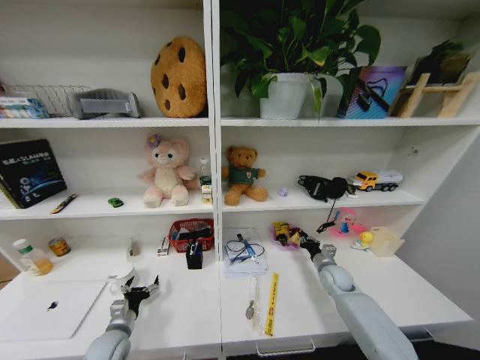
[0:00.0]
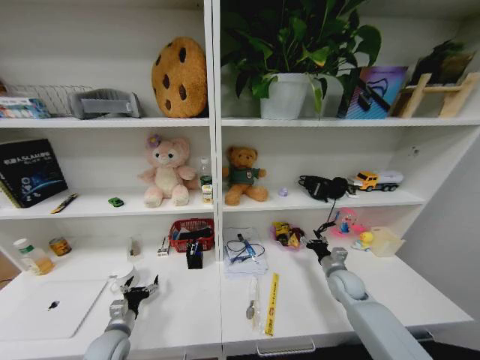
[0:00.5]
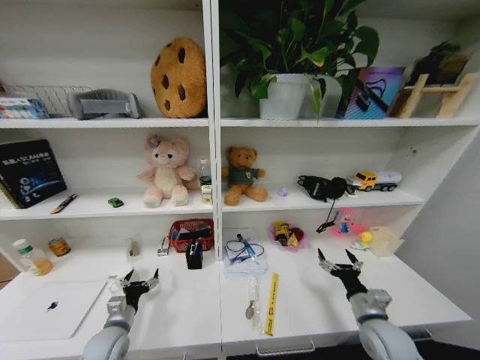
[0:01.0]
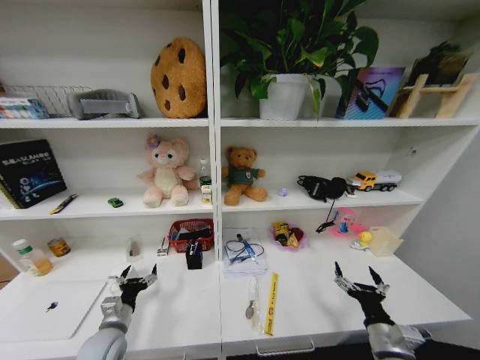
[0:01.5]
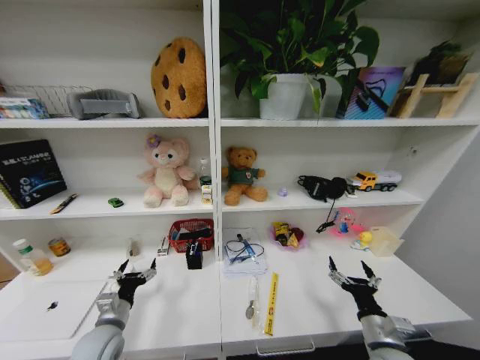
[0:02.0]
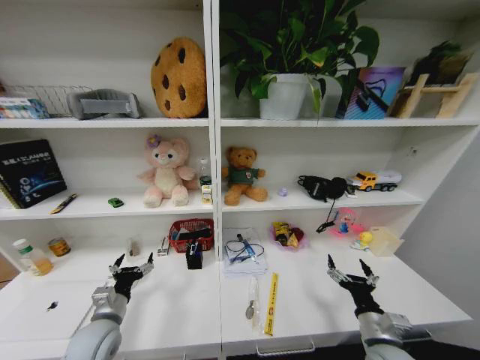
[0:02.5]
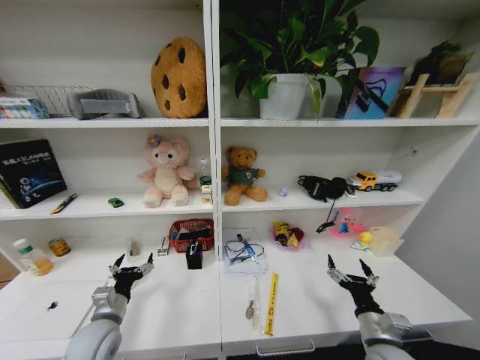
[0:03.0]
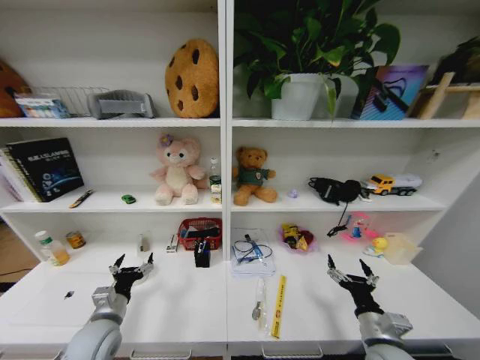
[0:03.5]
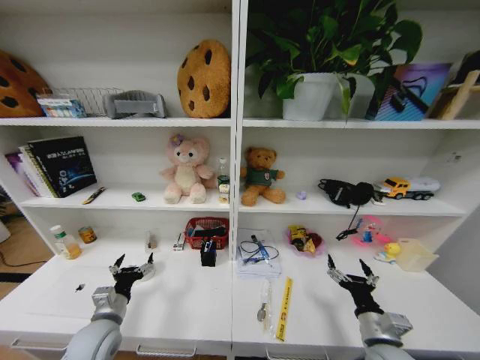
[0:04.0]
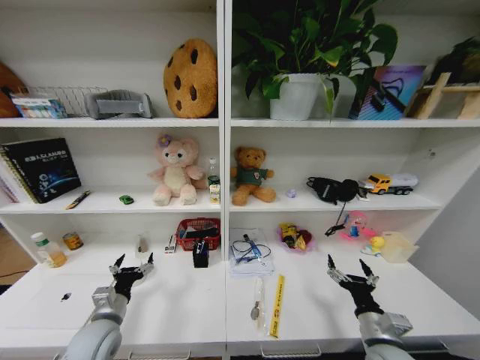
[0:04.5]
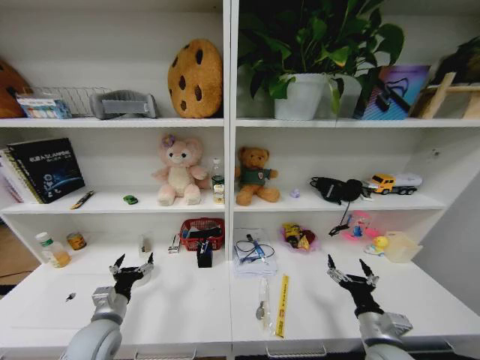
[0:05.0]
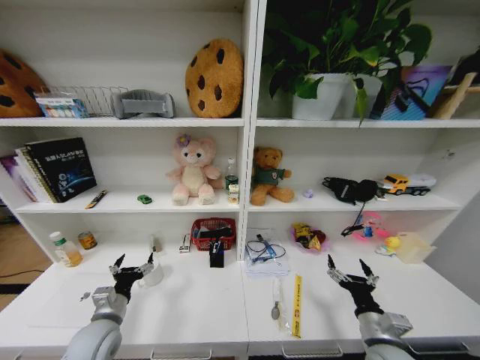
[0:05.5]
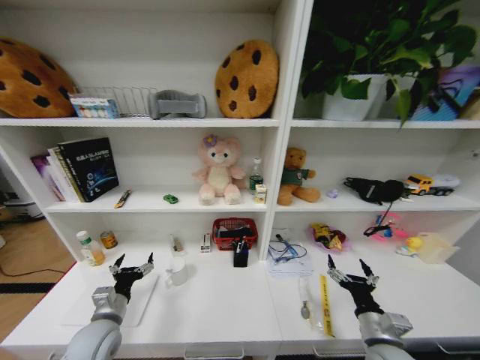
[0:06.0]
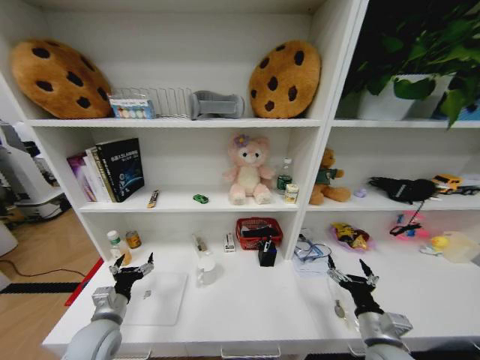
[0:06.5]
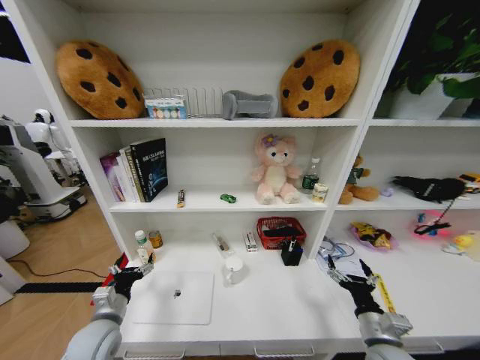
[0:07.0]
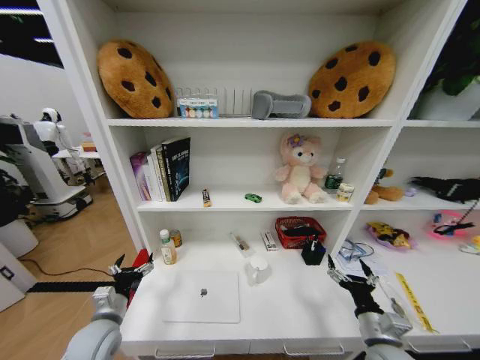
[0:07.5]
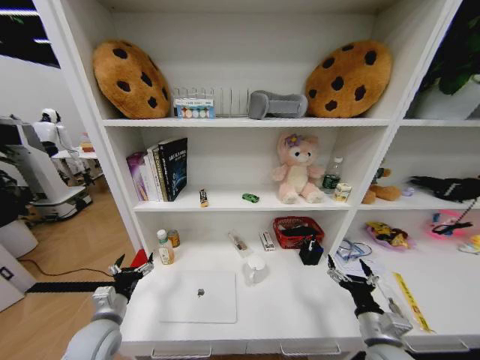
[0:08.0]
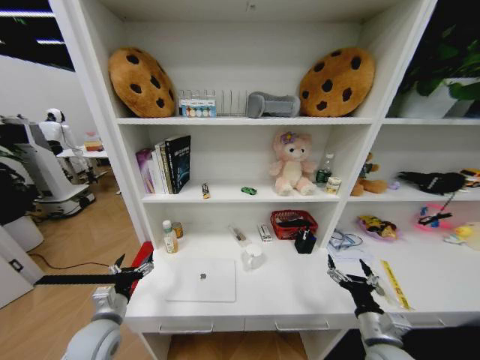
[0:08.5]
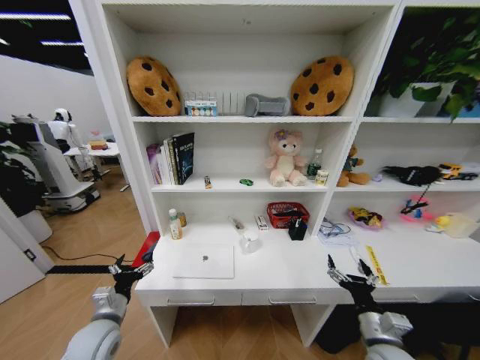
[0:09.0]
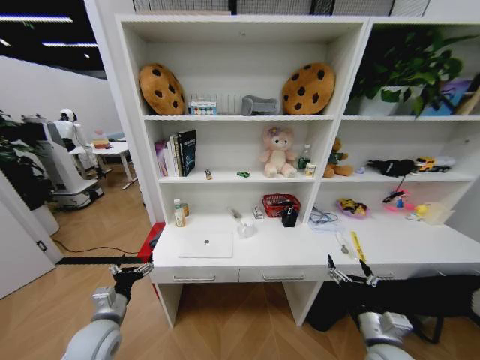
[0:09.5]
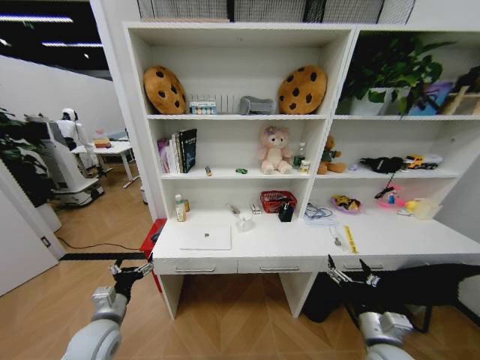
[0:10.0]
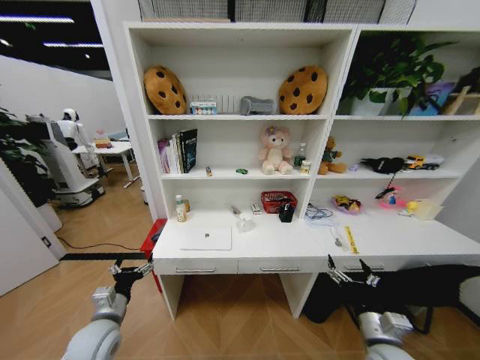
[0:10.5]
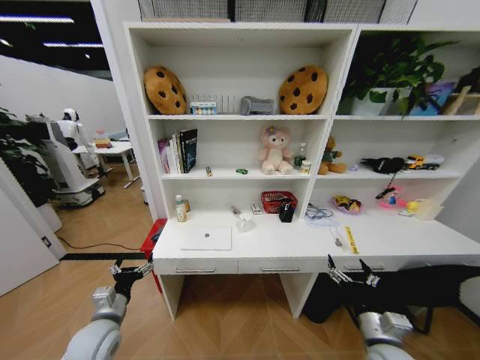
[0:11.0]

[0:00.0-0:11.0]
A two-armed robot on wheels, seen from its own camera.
Task of the whole recording: Organize the objects on the table.
0:00.0 to 0:02.0: The right gripper shifts roughly 25 cm backward, and opens up. The left gripper goes roughly 10 cm upward.

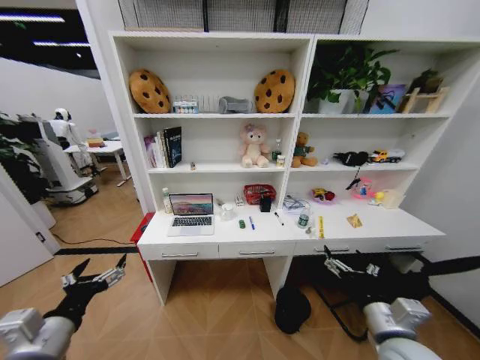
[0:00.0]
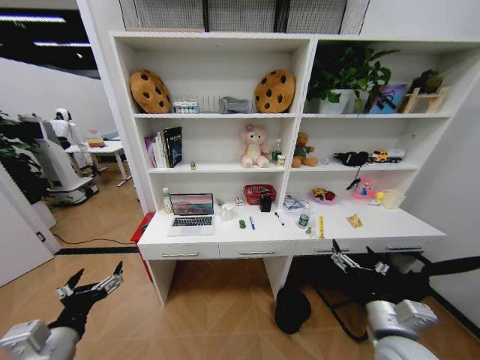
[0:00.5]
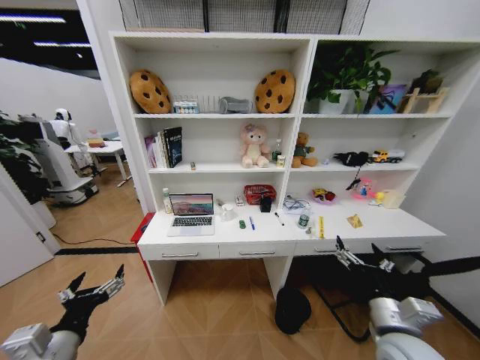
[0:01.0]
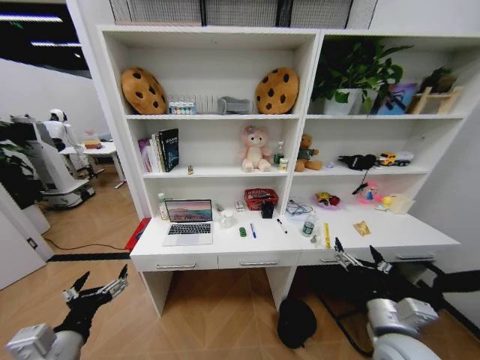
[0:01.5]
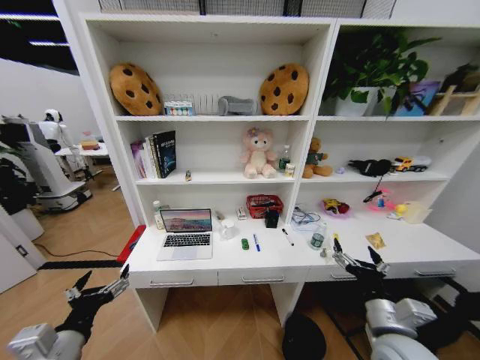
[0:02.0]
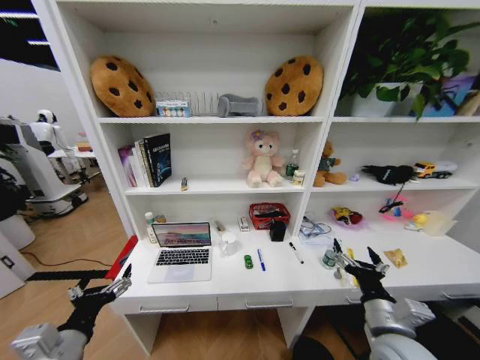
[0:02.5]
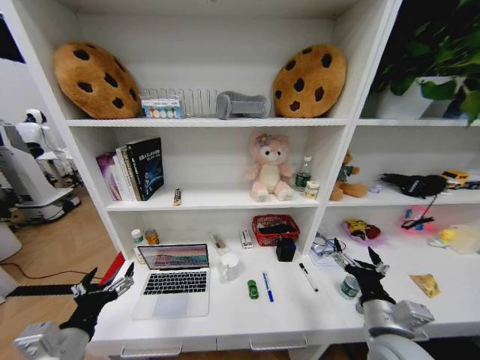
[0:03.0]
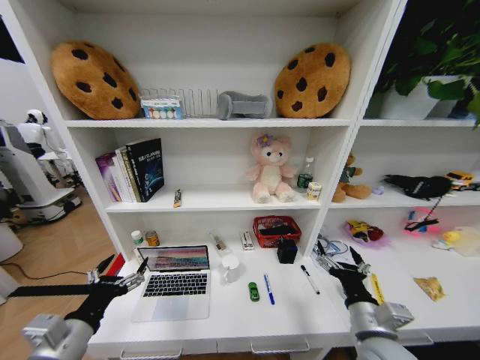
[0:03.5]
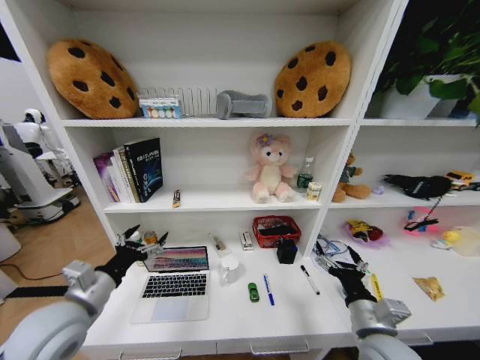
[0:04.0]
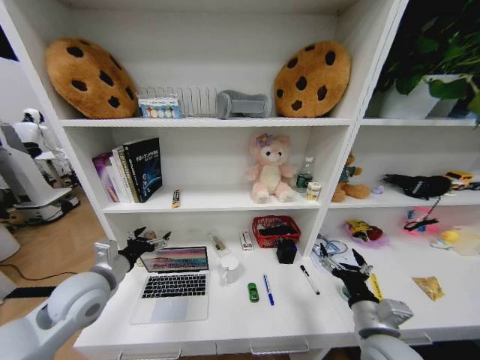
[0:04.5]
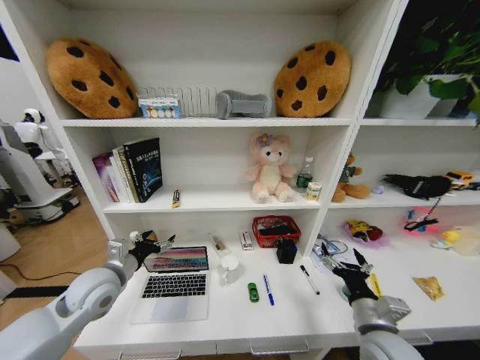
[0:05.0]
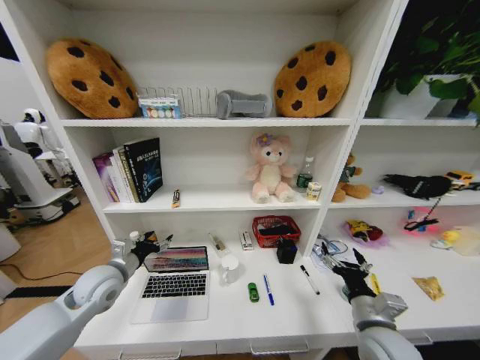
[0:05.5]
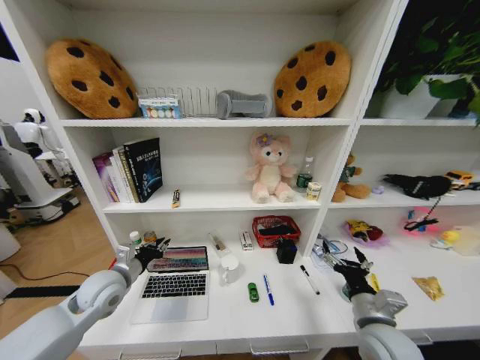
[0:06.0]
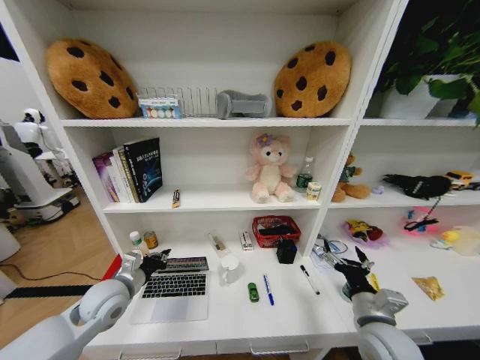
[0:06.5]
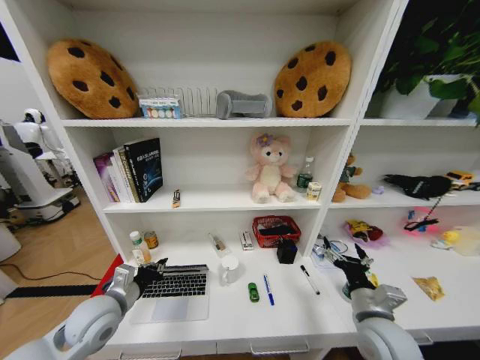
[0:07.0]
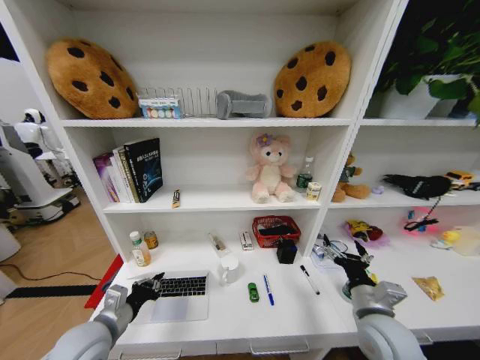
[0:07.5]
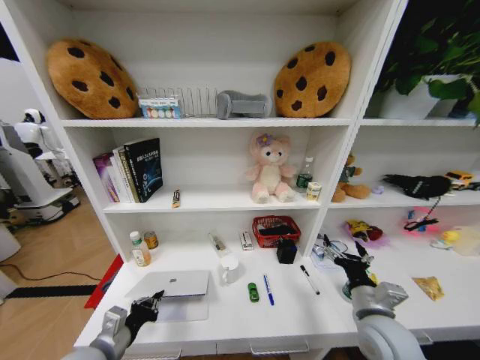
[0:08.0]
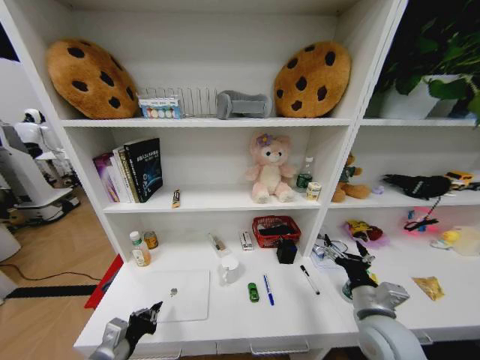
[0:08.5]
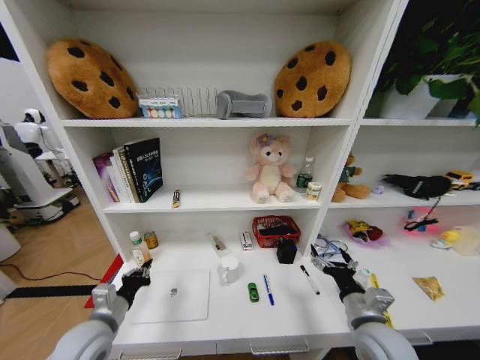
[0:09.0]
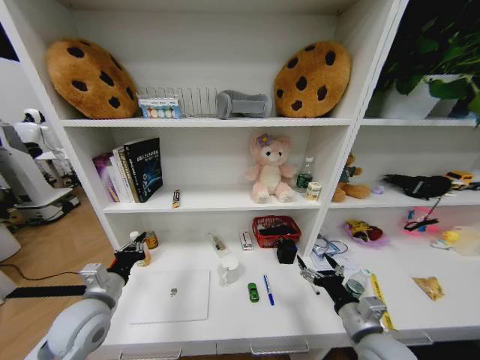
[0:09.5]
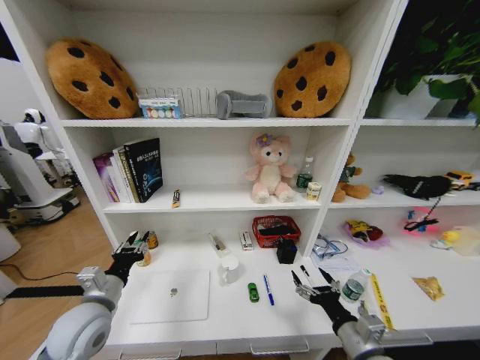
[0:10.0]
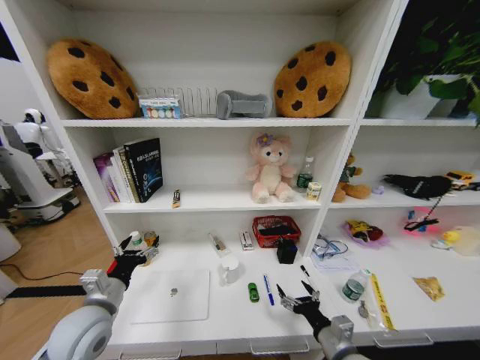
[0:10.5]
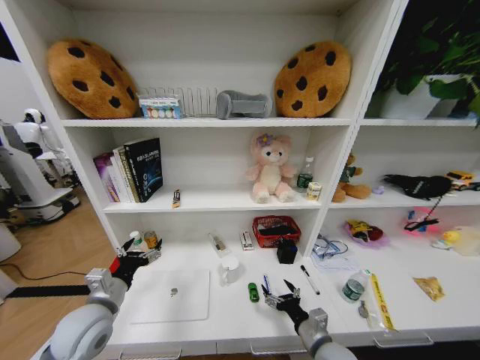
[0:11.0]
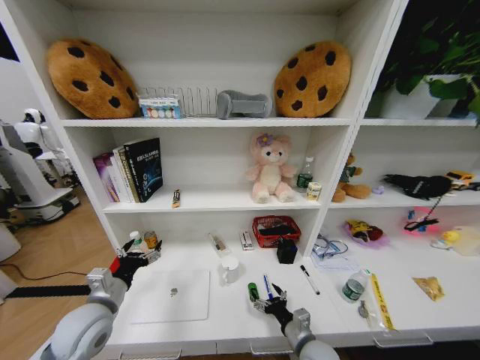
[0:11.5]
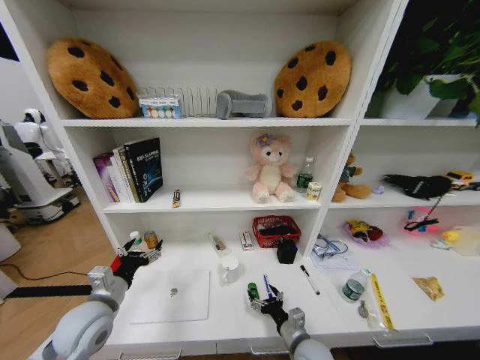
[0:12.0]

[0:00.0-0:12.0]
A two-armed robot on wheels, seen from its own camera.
Task of the whole recording: Organize the objects on the table.
0:02.0 to 0:04.0: The left gripper shifts some 10 cm forward.
0:04.0 to 0:06.0: The left gripper moves forward and downward, approximately 10 cm, and closes up.
0:06.0 to 0:08.0: The left gripper is displaced backward by roughly 15 cm.
0:08.0 to 0:10.0: The right gripper moves backward, about 5 cm. Meanwhile the left gripper is displaced forward by roughly 5 cm, and opens its fingers.
0:10.0 to 0:12.0: The right gripper travels downward, to the left and forward by some 15 cm. The left gripper opens its fingers.

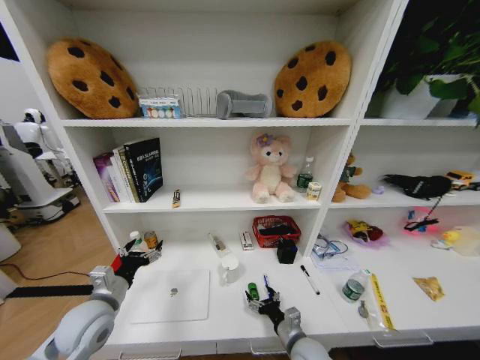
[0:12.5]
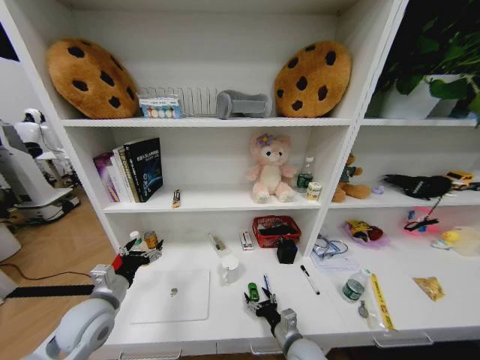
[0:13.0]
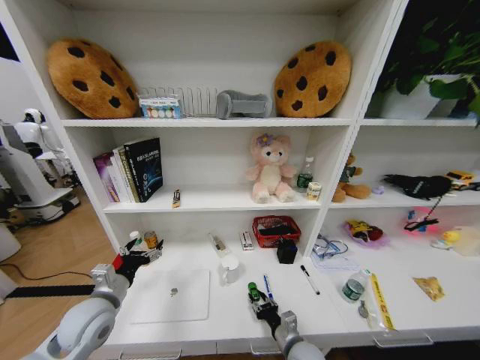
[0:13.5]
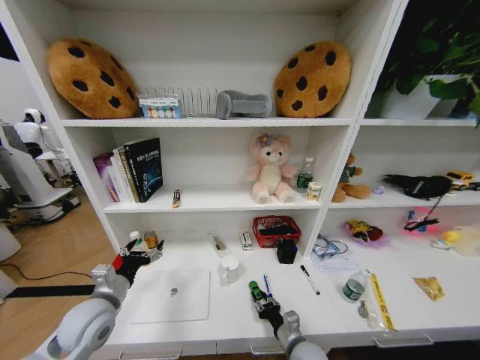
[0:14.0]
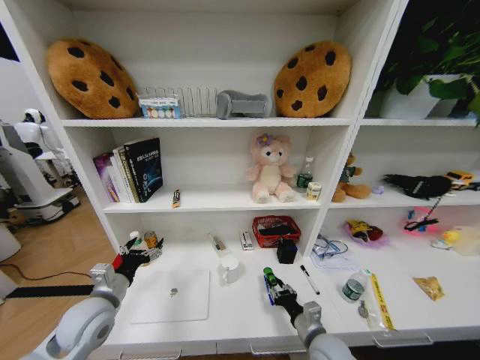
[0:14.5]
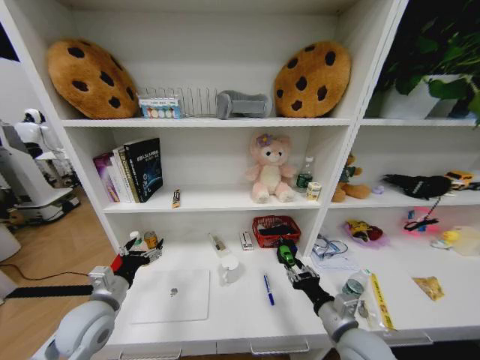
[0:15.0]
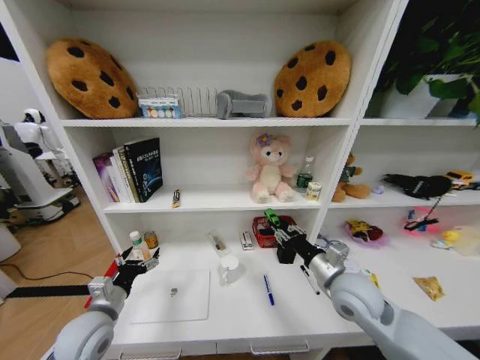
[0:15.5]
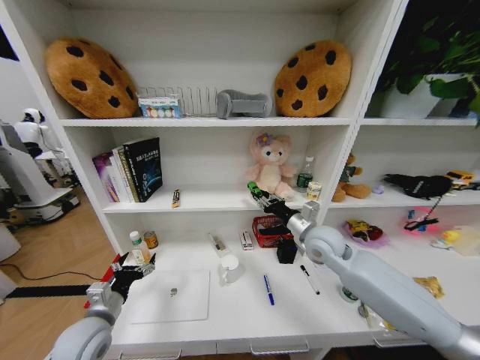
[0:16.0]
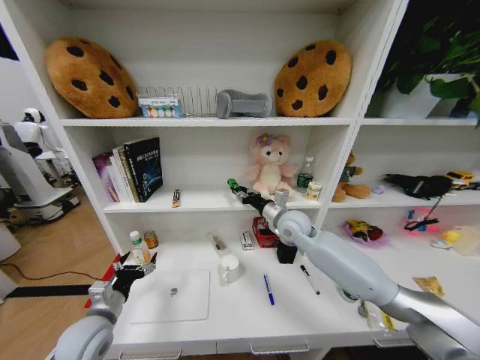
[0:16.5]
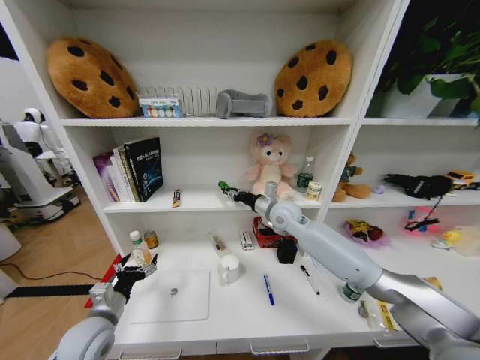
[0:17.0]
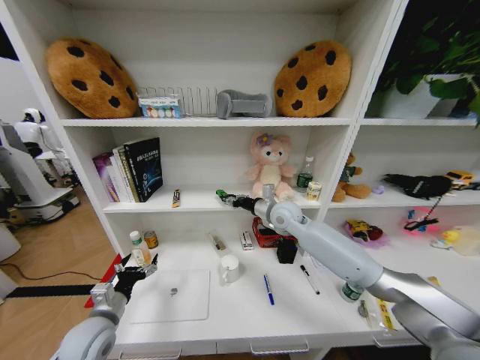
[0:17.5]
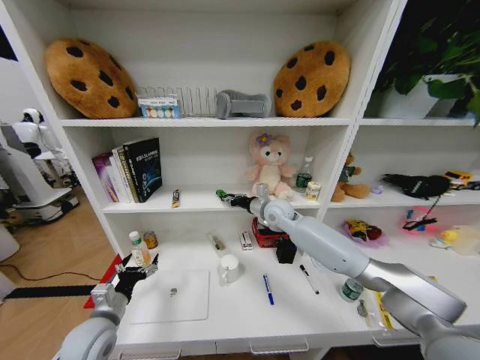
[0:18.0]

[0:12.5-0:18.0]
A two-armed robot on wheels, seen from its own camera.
Task of the whole recording: Organize the objects on the table.
0:12.5 to 0:14.5: The right gripper heads upward, covering roughly 5 cm, and closes its fingers.
0:14.5 to 0:16.0: The right gripper travels upward and forward by about 25 cm.
0:16.0 to 0:18.0: The right gripper heads forward and to the left, covering roughly 15 cm.
